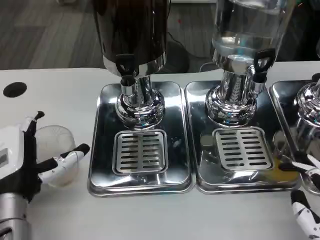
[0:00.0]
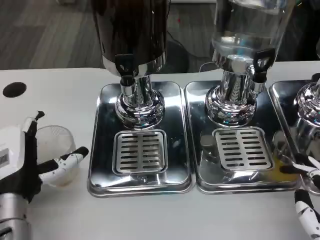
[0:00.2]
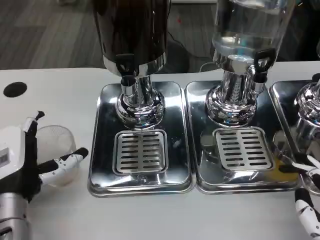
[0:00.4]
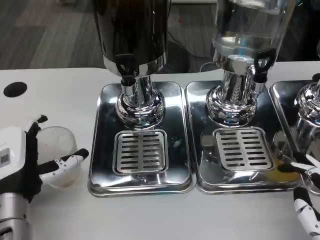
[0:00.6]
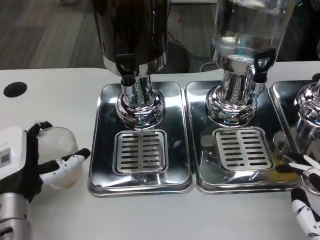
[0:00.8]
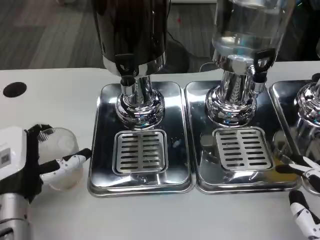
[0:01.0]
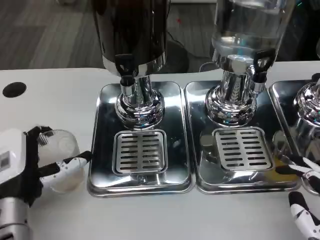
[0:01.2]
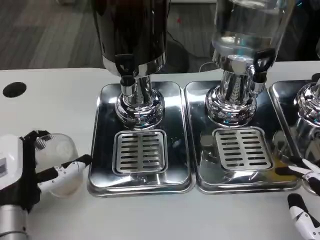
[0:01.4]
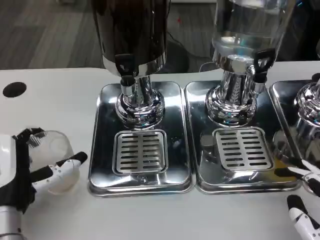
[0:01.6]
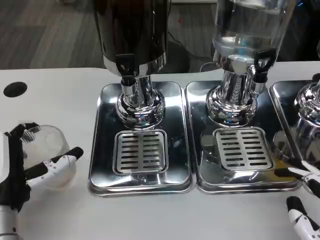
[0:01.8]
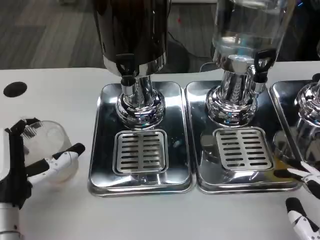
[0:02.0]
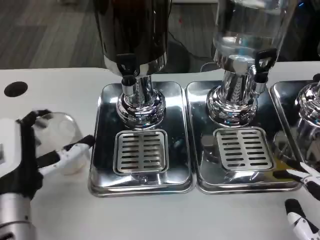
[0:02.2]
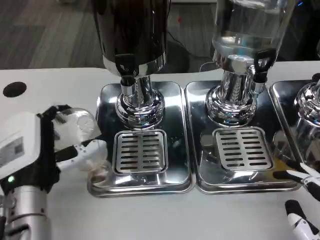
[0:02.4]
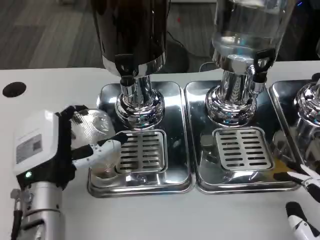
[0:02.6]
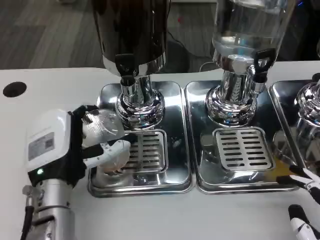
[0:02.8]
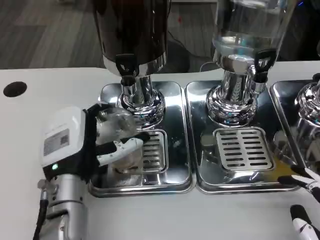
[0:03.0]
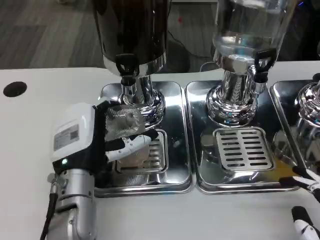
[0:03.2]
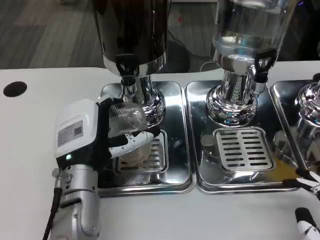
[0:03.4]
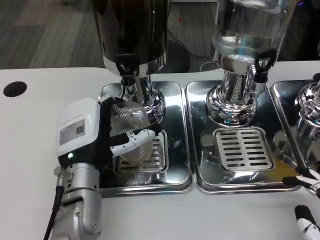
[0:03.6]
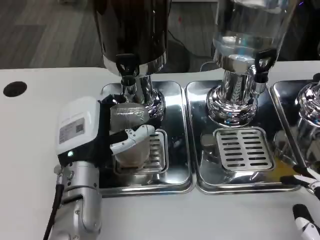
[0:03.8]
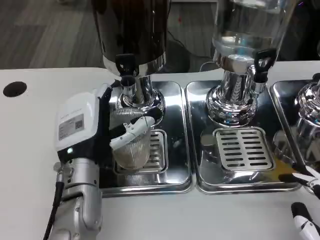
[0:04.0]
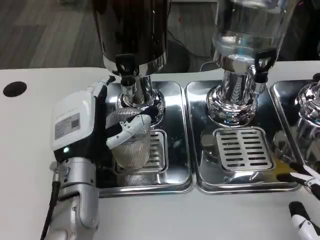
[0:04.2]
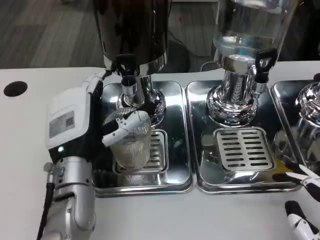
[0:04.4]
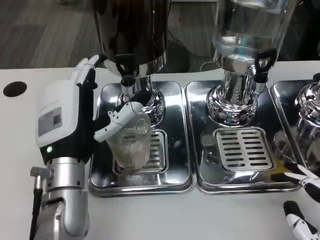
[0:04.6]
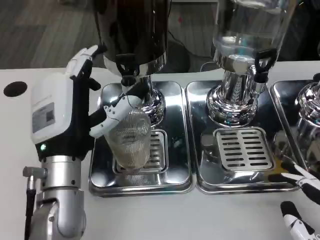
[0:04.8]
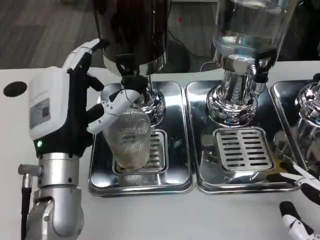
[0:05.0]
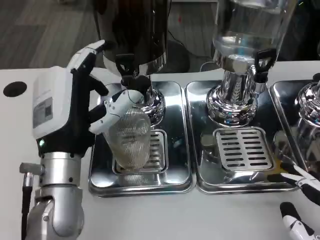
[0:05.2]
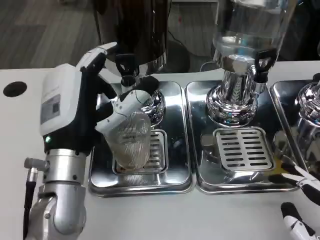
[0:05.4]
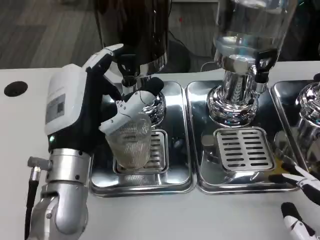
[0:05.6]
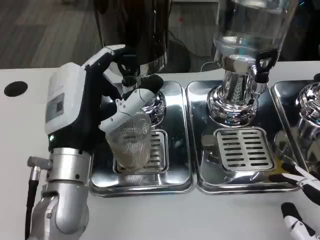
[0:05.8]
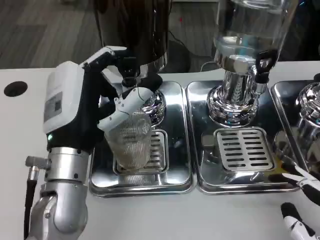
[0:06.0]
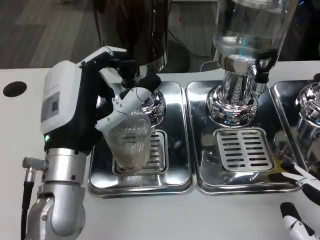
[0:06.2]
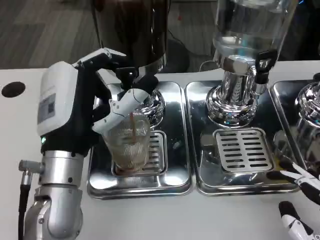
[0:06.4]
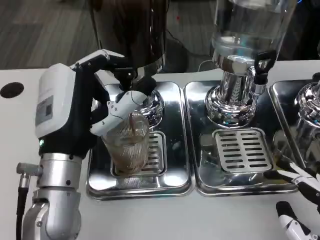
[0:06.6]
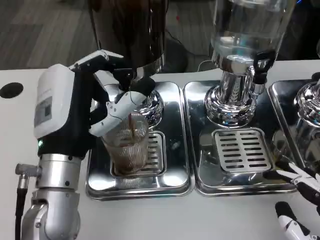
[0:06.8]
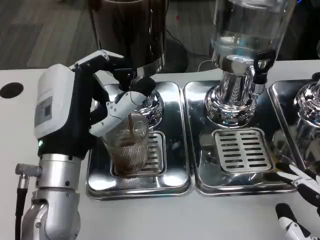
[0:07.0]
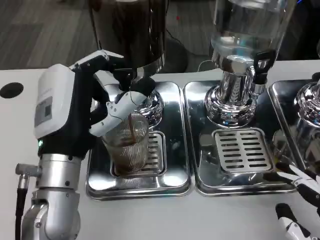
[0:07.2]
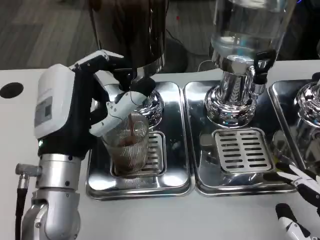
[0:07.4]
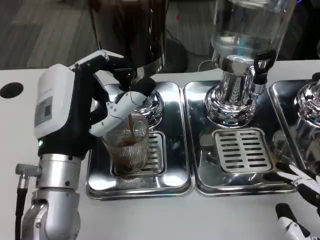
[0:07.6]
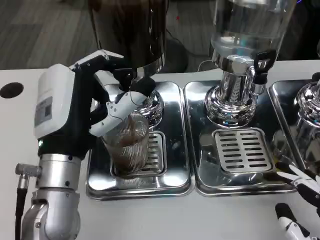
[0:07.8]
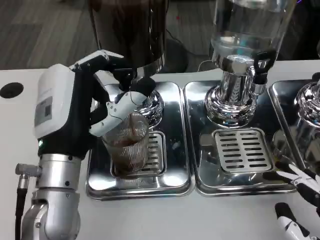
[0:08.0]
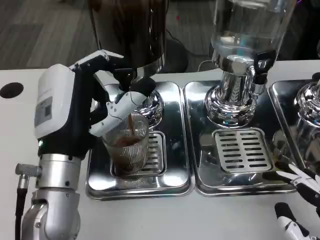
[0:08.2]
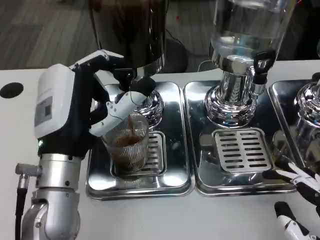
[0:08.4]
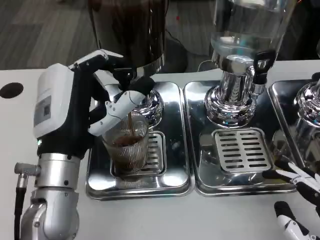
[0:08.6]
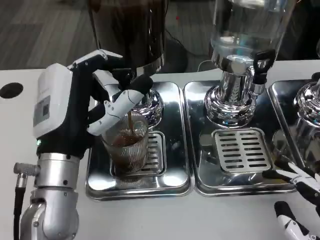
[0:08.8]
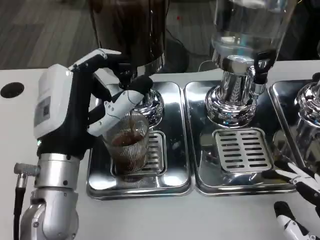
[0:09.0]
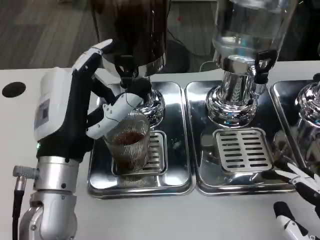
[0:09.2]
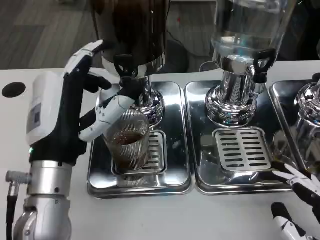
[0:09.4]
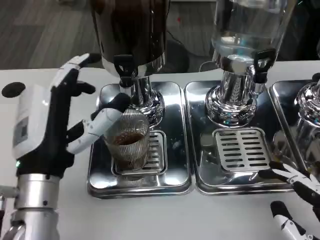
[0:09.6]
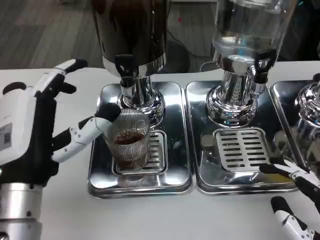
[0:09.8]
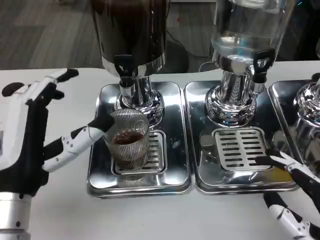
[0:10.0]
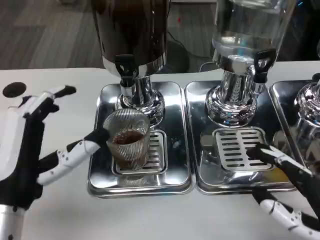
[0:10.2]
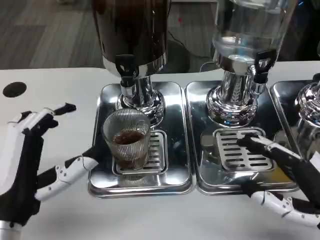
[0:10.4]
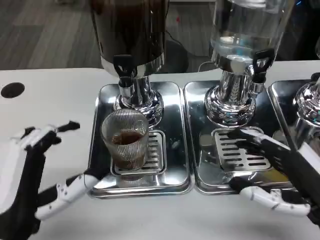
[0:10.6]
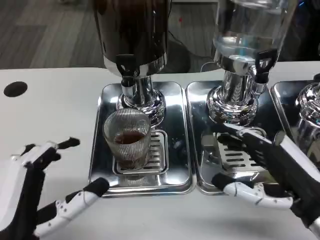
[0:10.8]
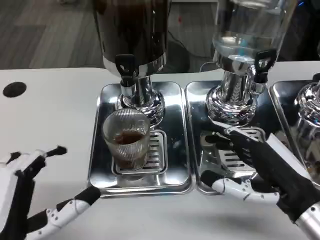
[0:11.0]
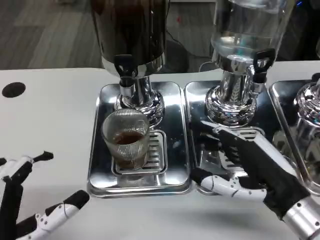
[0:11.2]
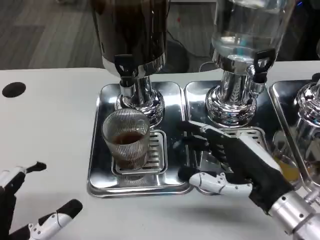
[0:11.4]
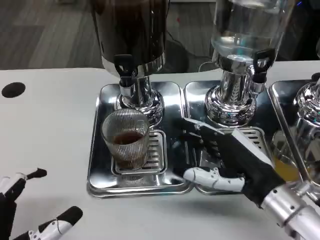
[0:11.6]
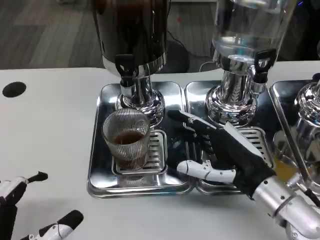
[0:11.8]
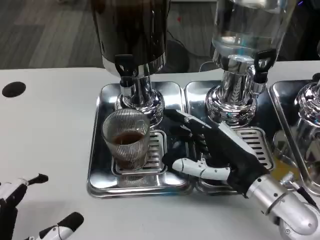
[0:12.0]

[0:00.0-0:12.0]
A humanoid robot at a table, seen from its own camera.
Task of the whole recording: Grasp the cup under the faucet to collect the drink, then remove the cup.
0:00.0 to 0:01.6: The hands stay close to where they were, moving slightly.
0:01.6 to 0:03.0: The left hand shifts some 5 cm to the right.
0:03.0 to 0:04.4: The hands make only small movements.
0:07.6 to 0:09.0: Both hands stay about where they are.
0:09.0 to 0:10.4: The right hand travels forward by approximately 5 cm; the left hand heads backward and to the left, covering roughly 10 cm.
0:10.4 to 0:12.0: The left hand travels backward by some 10 cm; the right hand is displaced forward and to the left by some 15 cm.

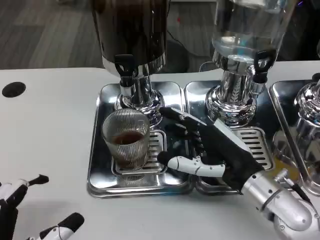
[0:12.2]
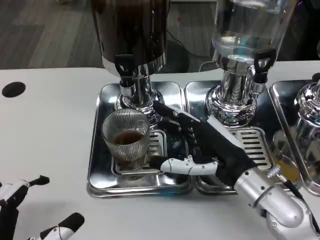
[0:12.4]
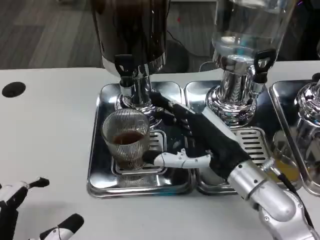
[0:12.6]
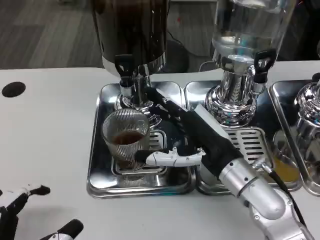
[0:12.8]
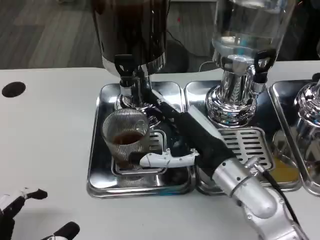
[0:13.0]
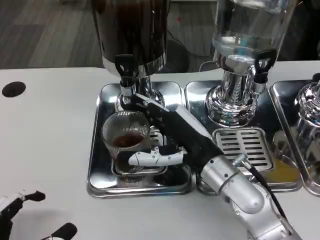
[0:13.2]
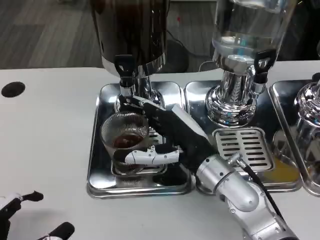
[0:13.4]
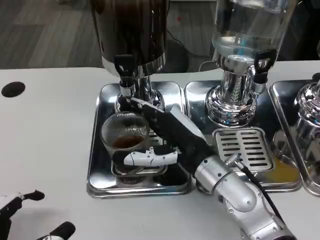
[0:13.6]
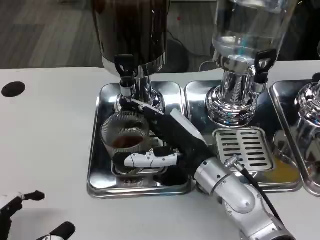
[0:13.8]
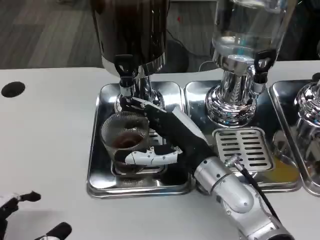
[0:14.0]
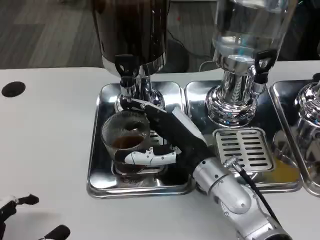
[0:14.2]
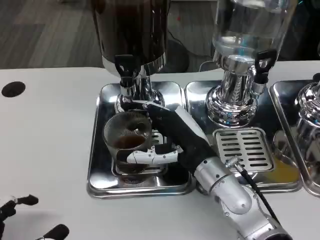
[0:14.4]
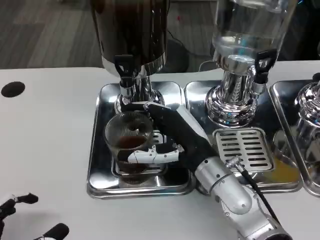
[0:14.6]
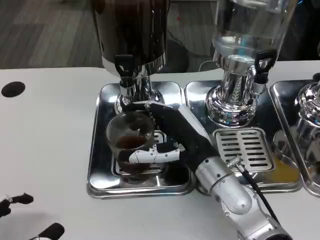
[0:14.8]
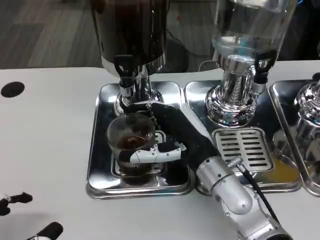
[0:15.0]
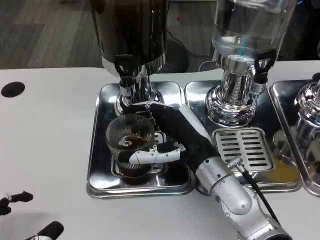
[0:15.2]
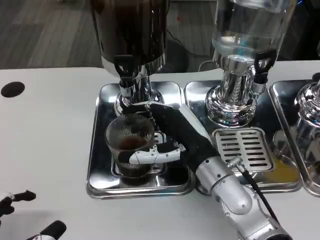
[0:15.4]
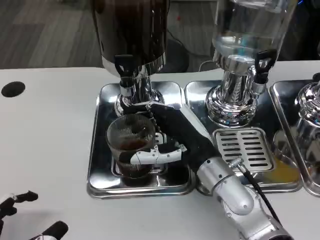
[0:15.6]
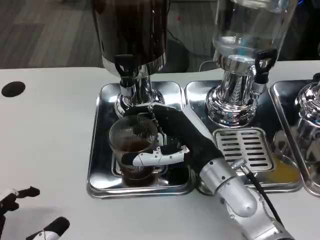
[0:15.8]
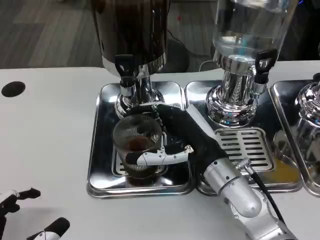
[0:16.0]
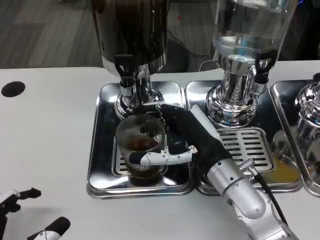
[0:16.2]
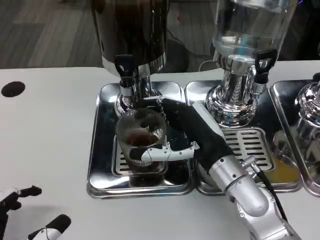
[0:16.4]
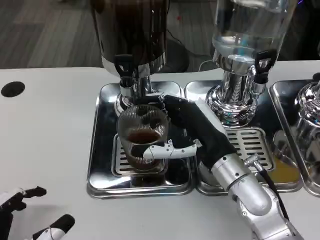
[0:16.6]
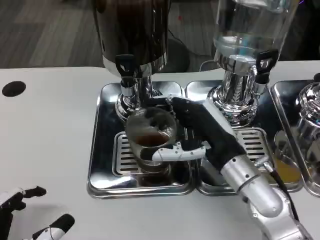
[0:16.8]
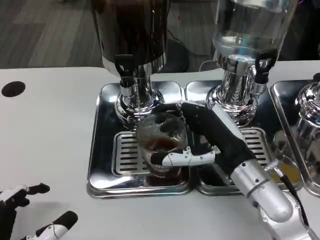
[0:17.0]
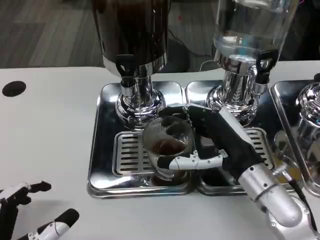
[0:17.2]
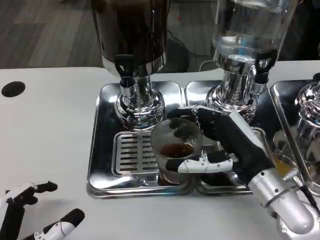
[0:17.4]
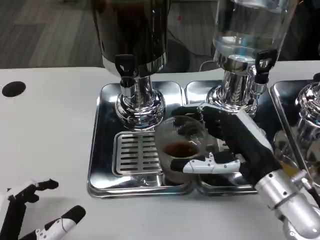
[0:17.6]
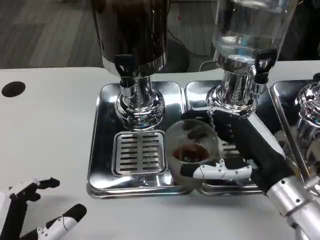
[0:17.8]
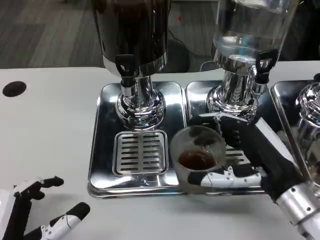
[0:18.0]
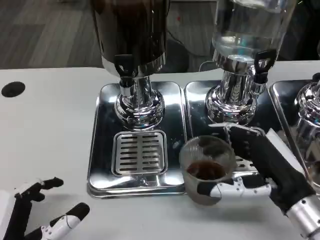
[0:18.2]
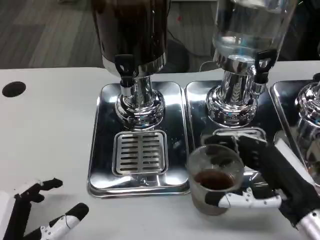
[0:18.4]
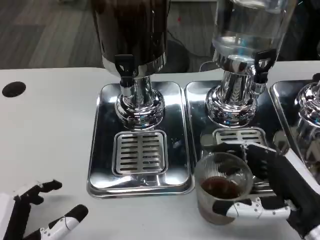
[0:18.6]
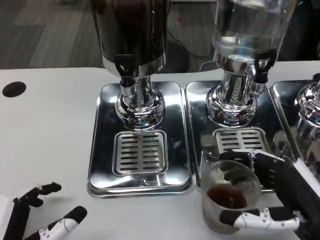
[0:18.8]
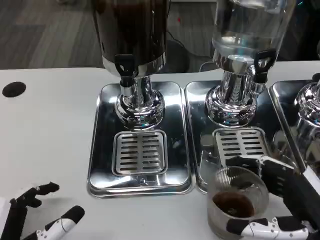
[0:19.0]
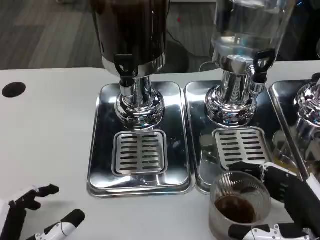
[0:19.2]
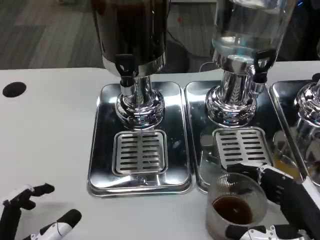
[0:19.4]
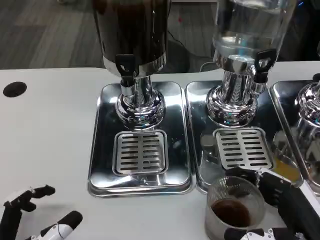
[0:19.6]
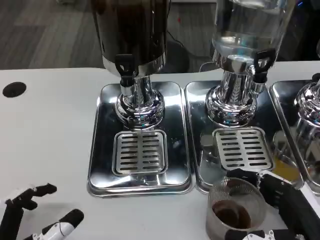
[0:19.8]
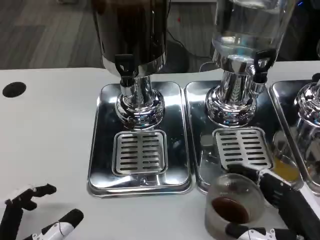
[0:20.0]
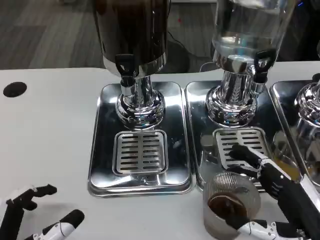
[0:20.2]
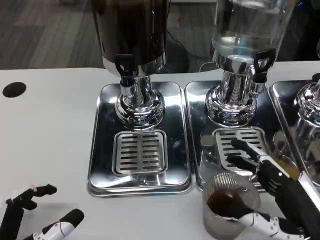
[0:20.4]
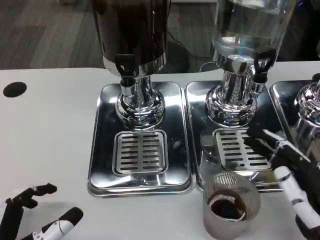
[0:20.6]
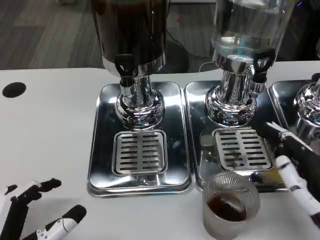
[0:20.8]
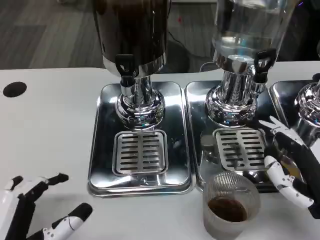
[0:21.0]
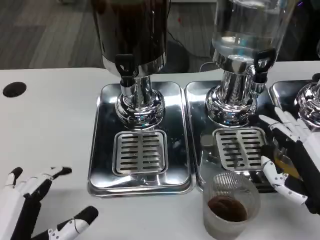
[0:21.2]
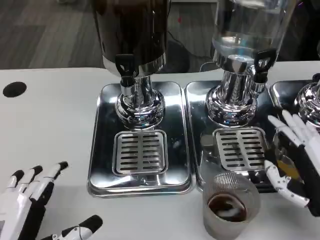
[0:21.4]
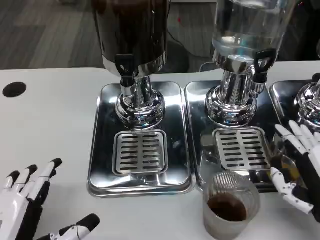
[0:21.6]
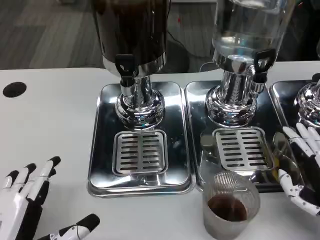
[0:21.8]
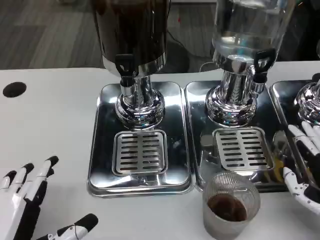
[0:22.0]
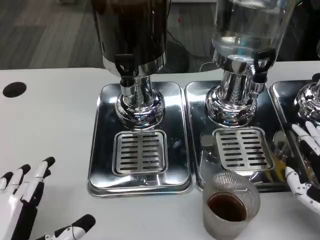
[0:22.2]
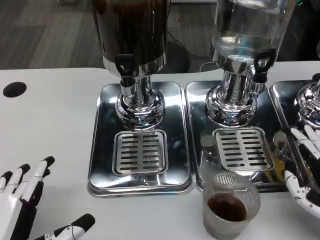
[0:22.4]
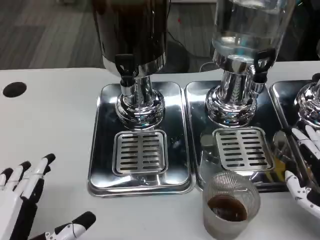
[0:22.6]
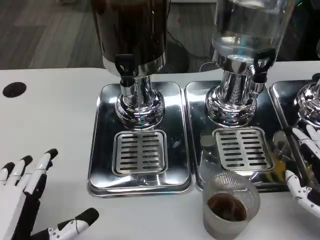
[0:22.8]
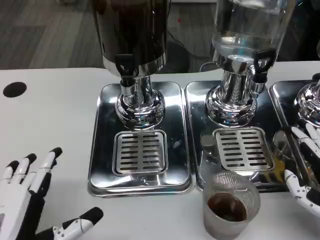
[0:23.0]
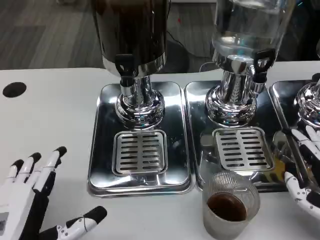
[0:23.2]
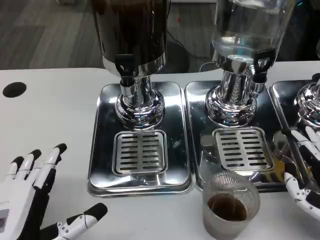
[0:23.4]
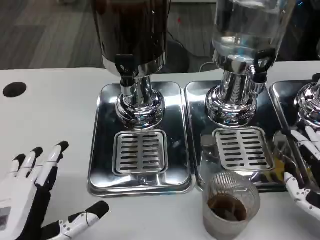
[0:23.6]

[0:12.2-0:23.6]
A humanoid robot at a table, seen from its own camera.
Task of the whole recording: Grasp the cup under the faucet to collect the drink, then remove the cup.
0:12.2 to 0:13.6: The right hand is displaced to the left by roughly 5 cm.
0:13.6 to 0:16.4: There are only small adjustments of the hands.
0:16.4 to 0:17.8: The right hand heads to the right, covering roughly 10 cm.
0:17.8 to 0:19.4: The right hand goes approximately 10 cm backward.
0:19.4 to 0:20.8: There are only small adjustments of the hands.
0:22.2 to 0:23.6: The hands stay close to where they were, moving slightly.
